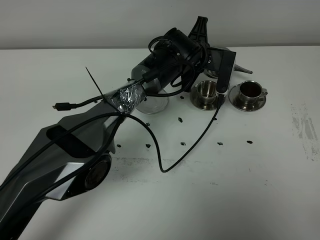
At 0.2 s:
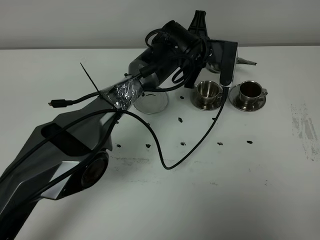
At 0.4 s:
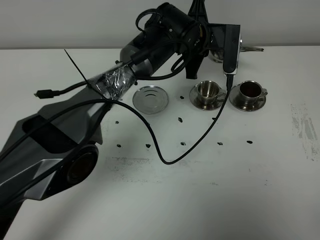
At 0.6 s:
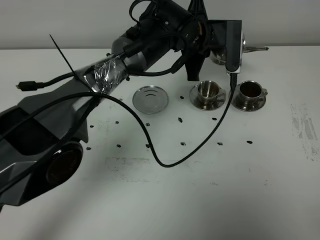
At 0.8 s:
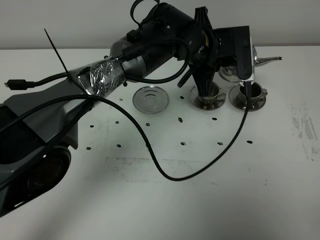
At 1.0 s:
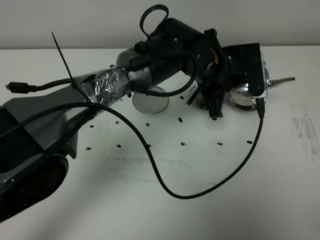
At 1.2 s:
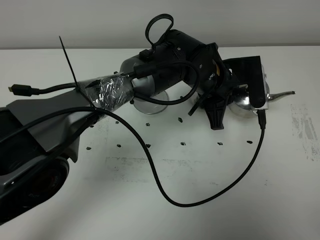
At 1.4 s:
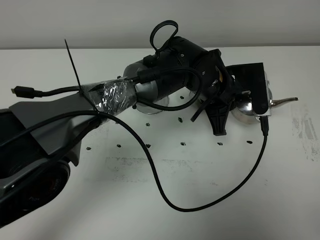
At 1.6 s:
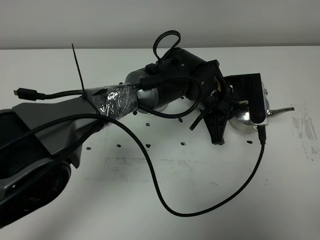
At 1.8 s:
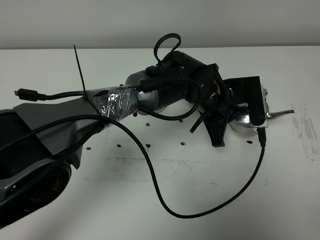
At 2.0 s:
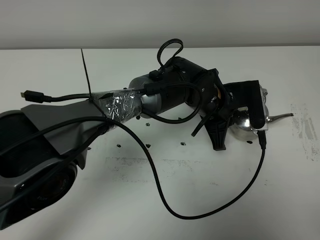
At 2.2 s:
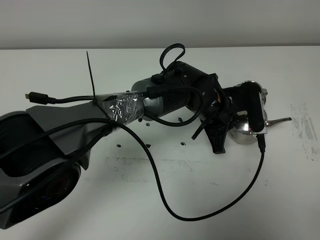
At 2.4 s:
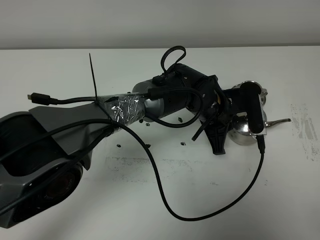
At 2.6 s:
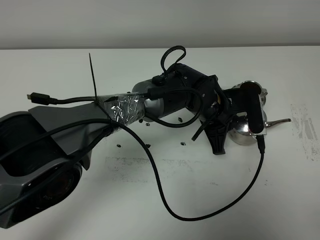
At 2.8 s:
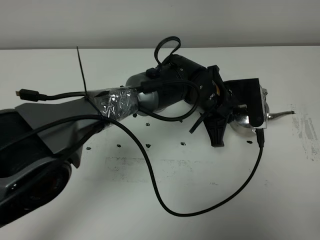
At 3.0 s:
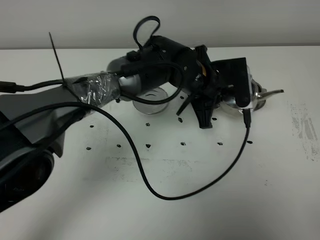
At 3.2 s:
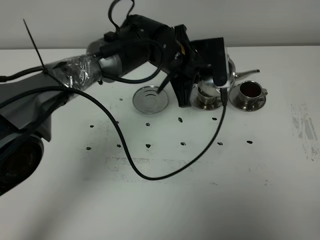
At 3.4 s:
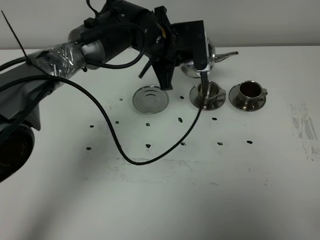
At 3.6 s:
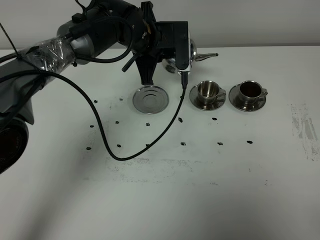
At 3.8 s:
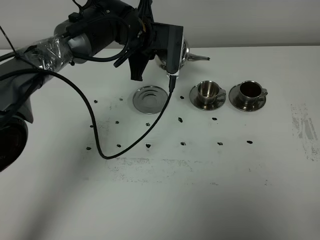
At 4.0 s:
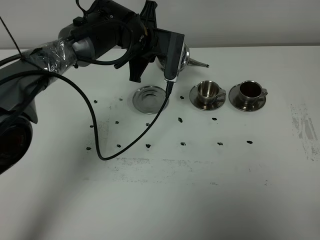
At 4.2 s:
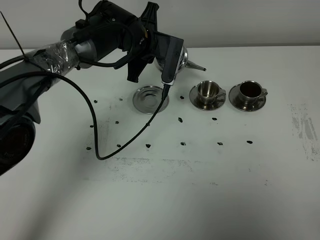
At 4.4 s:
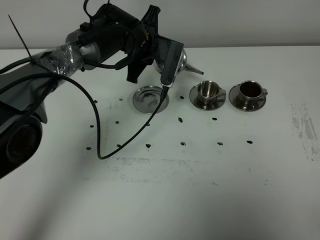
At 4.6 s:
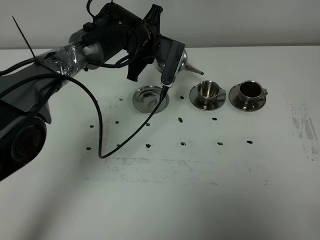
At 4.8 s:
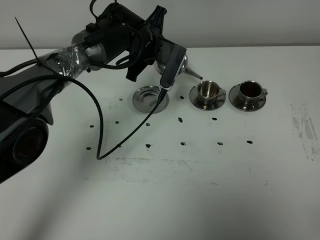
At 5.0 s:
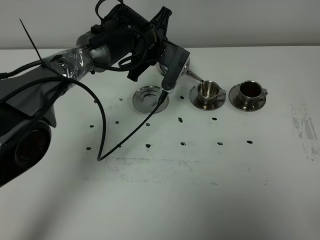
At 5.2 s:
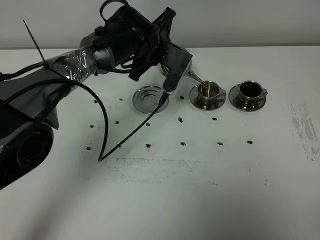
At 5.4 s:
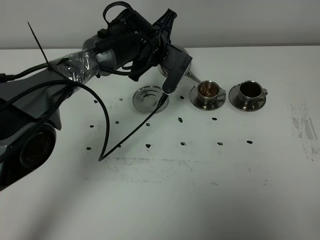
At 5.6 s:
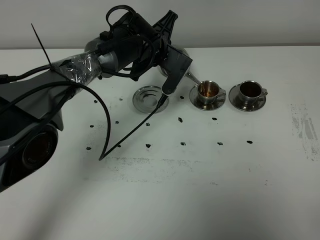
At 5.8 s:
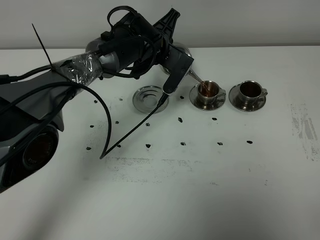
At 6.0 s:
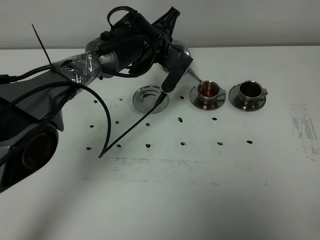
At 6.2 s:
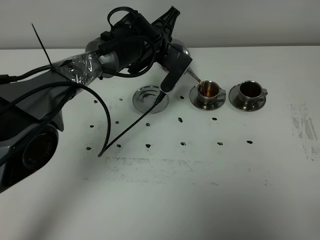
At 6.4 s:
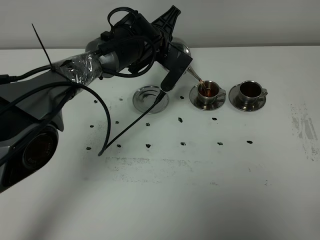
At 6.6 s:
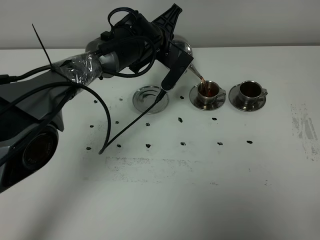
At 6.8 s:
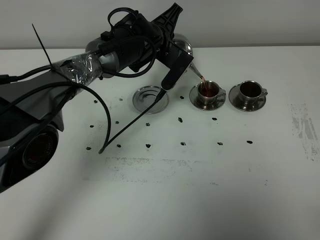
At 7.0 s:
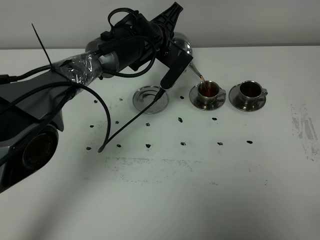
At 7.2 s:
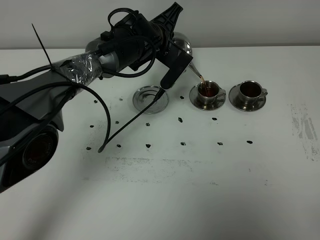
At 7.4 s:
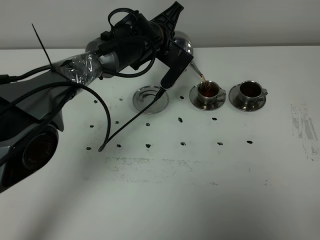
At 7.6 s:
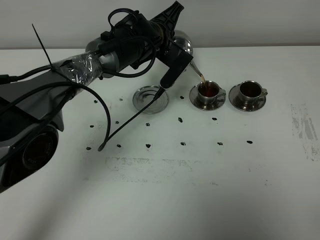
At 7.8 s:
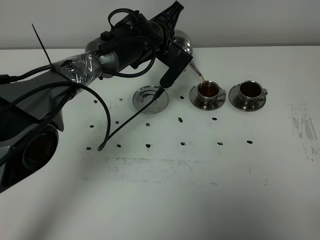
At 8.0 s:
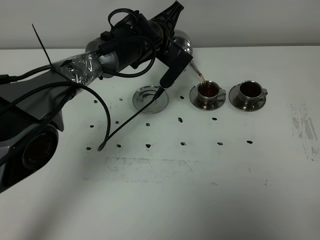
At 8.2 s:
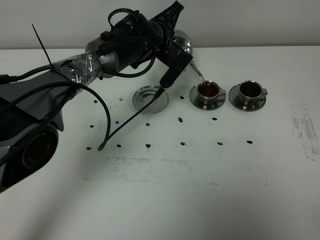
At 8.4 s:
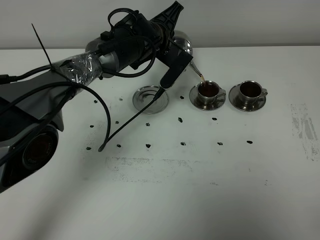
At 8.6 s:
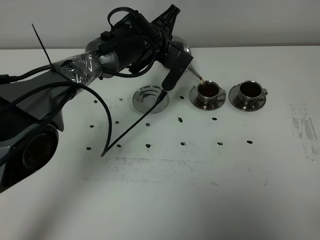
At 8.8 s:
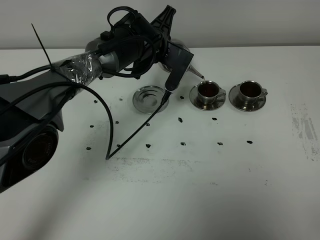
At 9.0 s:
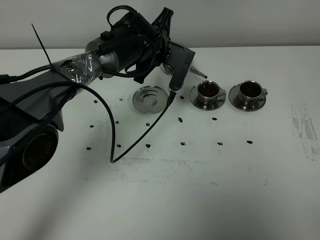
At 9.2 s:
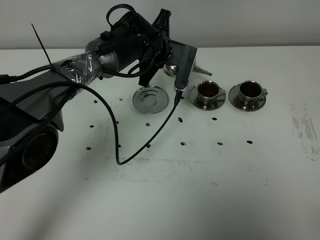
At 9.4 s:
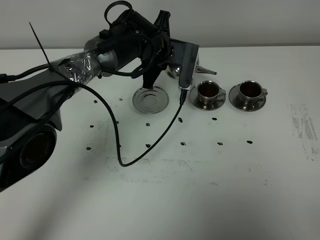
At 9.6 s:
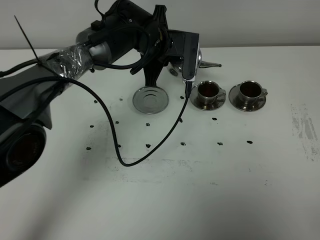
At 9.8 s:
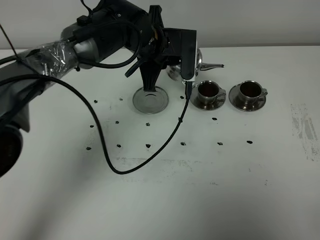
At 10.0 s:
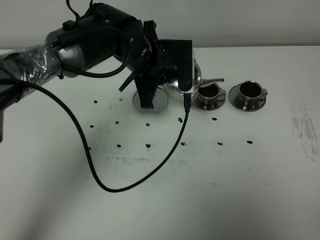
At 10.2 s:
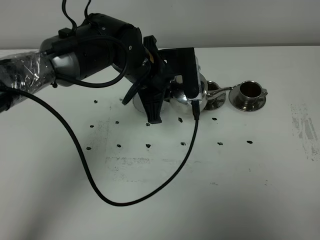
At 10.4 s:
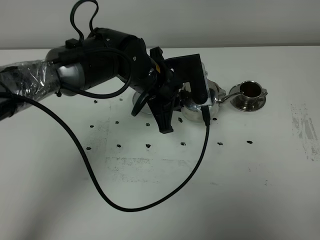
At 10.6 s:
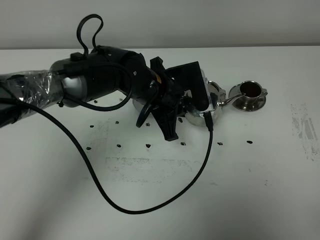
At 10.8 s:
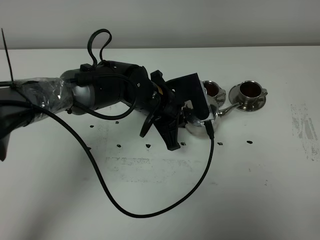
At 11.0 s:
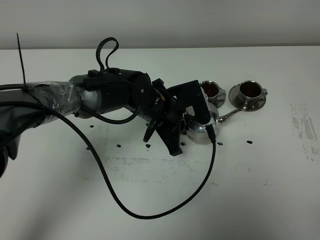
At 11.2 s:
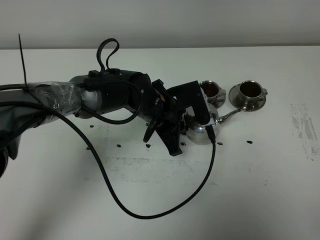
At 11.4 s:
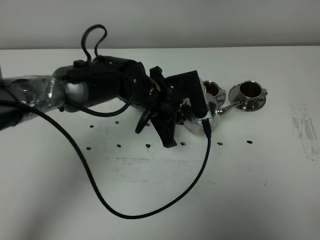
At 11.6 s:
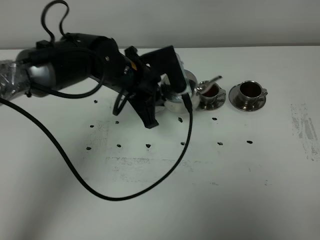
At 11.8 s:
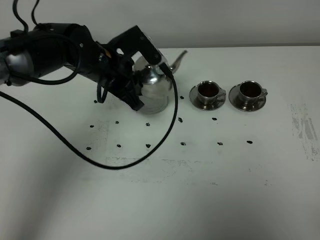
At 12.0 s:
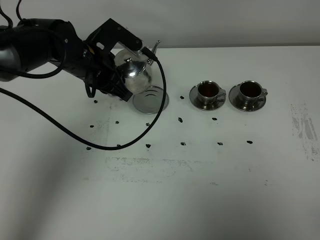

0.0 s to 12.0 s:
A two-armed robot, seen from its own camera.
Task of the whole recording: grasp the stainless steel teapot and pour the tea into the two stainless steel teacups one by one, put the stainless steel teapot back in its original place.
Step, 0.0 to 9.0 s: Pour tea into the teacup with the left gripper.
0.0 to 1.6 s: The left gripper is displaced backward by about 10 cm.
3.0 to 4.4 s: The left gripper goes about 15 cm to the left and forward.
4.4 to 6.0 s: There are only small adjustments of the grippers.
6.0 to 9.0 s: There are only small adjustments of the grippers.
9.0 to 10.4 s: The left gripper goes approximately 10 cm backward.
10.4 to 12.0 s: The left gripper travels to the left by roughly 10 cm.

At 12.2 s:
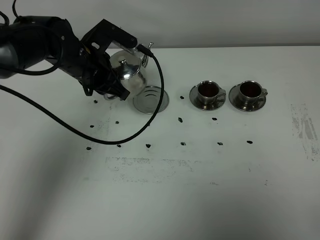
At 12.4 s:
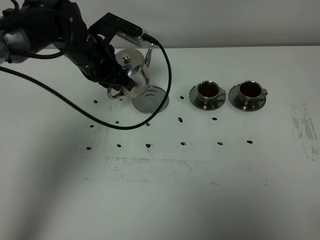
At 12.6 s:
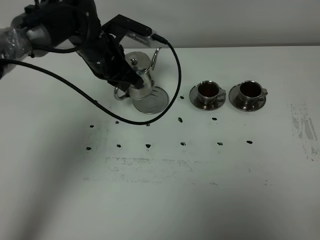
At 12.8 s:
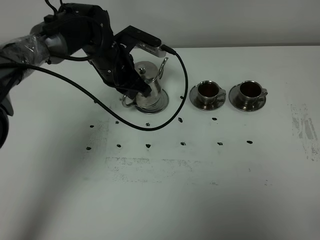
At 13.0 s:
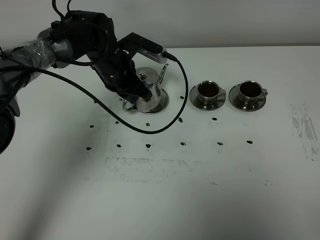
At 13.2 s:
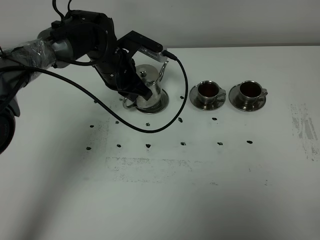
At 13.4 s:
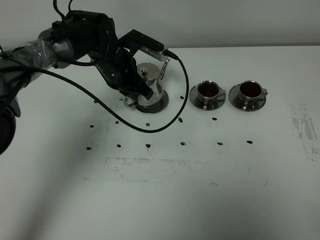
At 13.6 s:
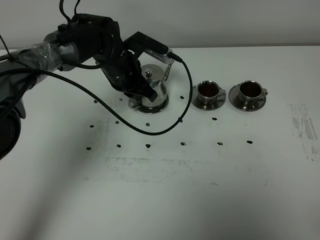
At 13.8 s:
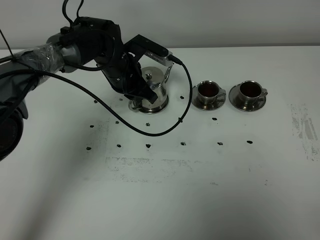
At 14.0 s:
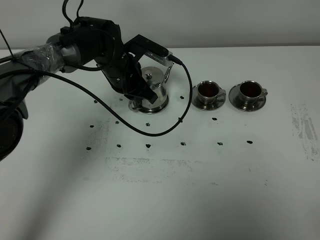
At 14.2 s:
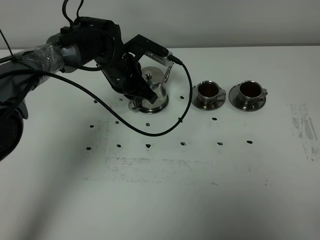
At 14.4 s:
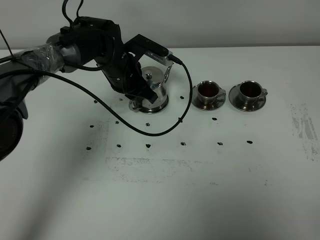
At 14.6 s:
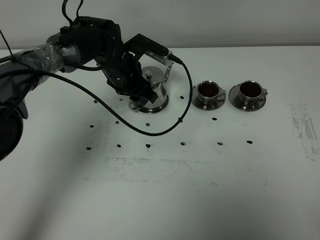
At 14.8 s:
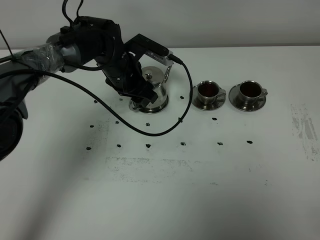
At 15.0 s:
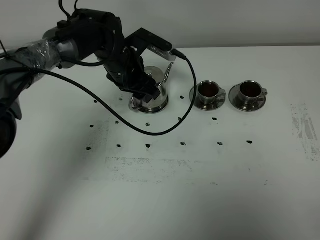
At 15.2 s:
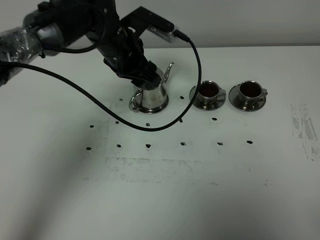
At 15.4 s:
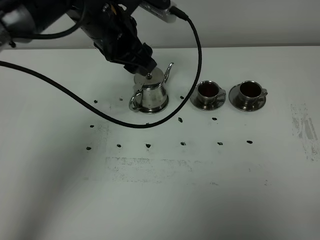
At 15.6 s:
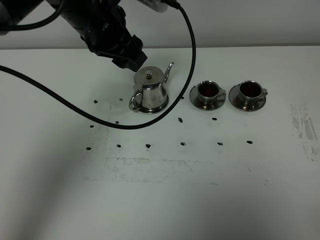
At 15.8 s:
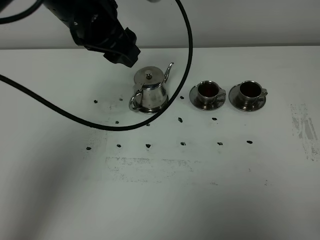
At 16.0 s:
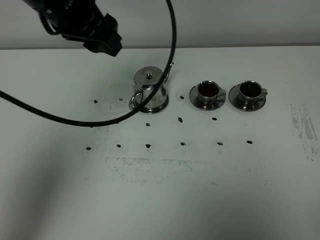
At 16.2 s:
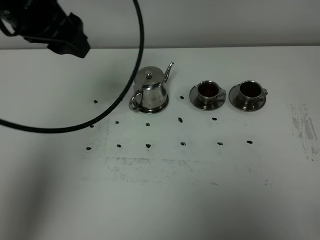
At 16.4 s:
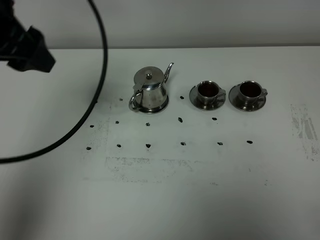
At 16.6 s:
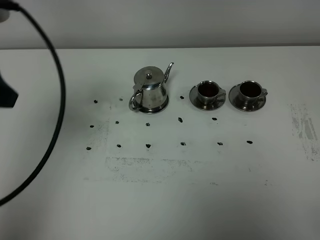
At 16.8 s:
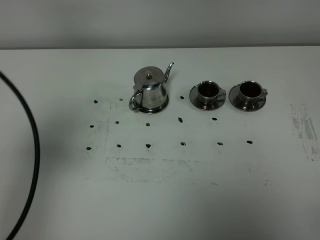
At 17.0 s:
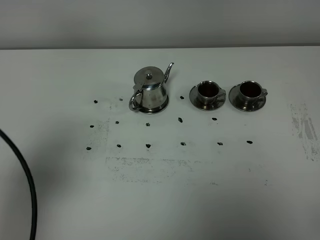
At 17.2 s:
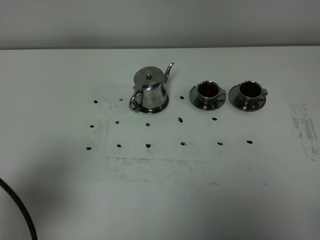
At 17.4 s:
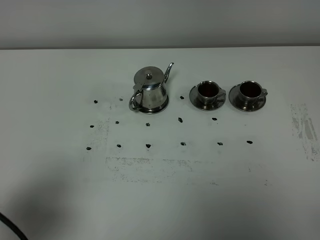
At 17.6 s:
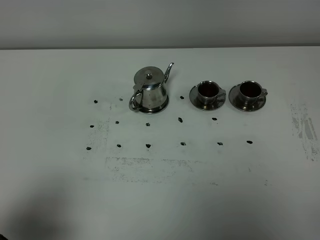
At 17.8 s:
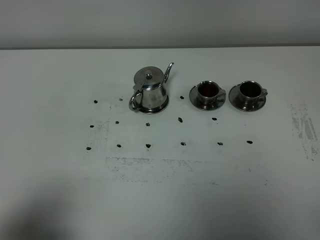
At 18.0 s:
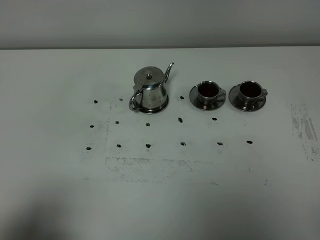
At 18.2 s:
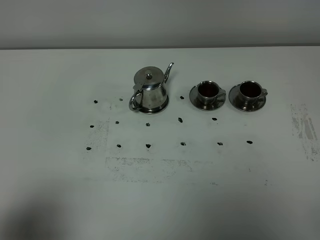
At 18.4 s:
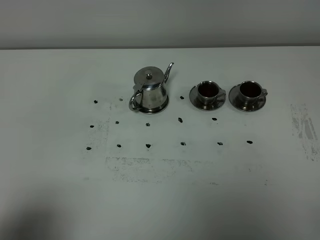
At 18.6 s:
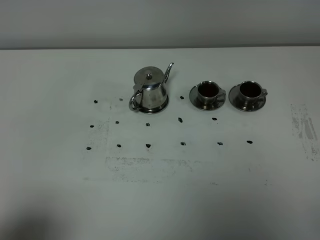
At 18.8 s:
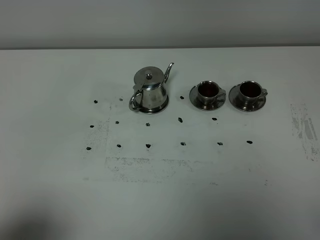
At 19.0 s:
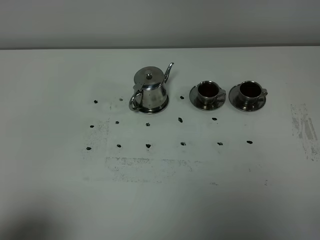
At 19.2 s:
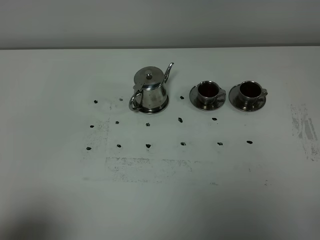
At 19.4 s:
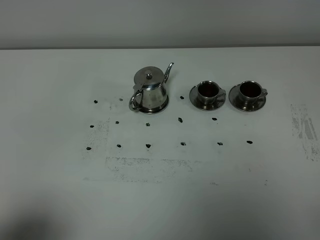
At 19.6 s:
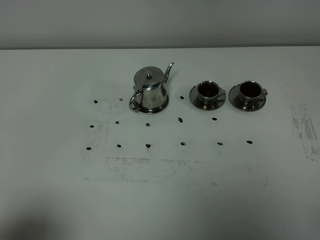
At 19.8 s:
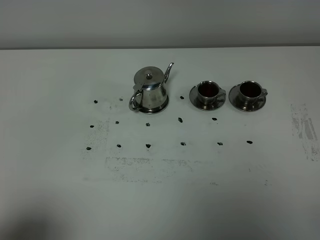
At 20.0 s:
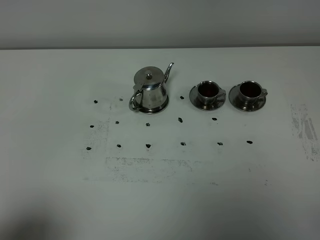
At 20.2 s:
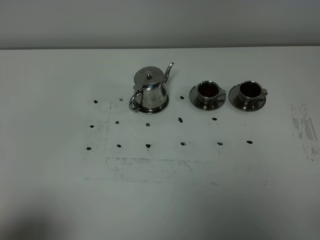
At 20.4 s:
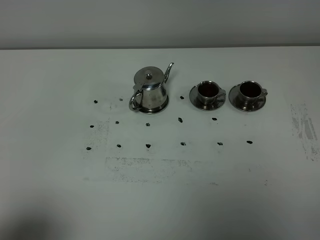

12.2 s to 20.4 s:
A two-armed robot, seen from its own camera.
Task of the whole recording: grasp the stainless steel teapot and pour the tea into the two stainless steel teacups one by one, put the stainless steel teapot back in its original place.
12.2 to 13.8 s: The left gripper shifts about 10 cm downward and to the right.
13.8 to 15.4 s: The left gripper moves upward, roughly 15 cm, and opens up.
15.4 to 17.2 s: The left gripper travels backward and to the left by some 35 cm.
17.2 to 18.8 s: The left gripper goes about 10 cm backward.

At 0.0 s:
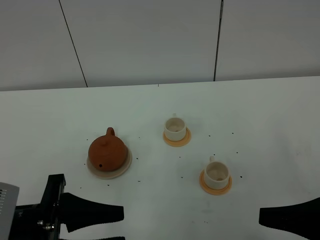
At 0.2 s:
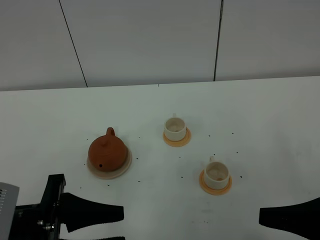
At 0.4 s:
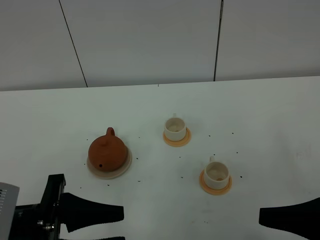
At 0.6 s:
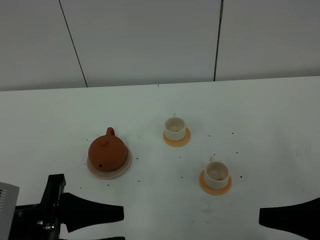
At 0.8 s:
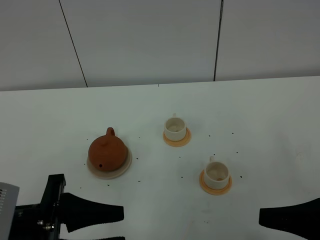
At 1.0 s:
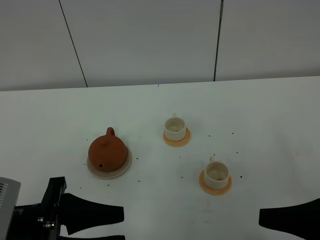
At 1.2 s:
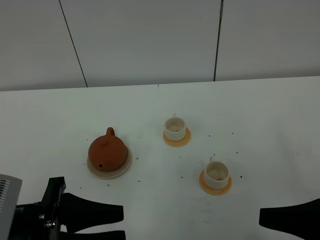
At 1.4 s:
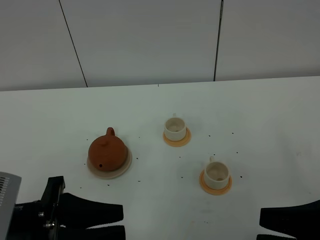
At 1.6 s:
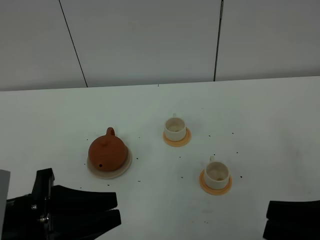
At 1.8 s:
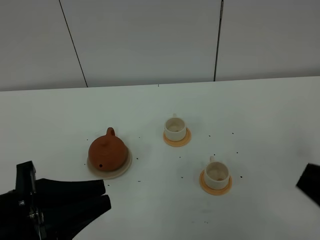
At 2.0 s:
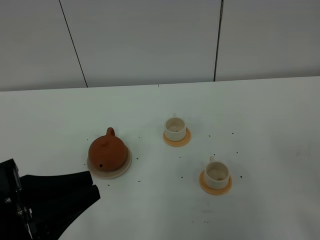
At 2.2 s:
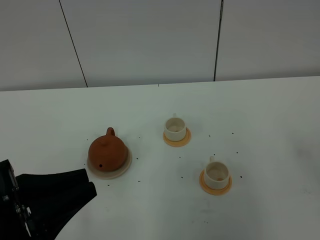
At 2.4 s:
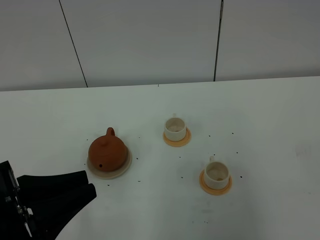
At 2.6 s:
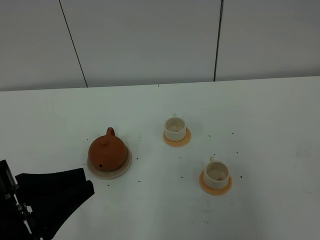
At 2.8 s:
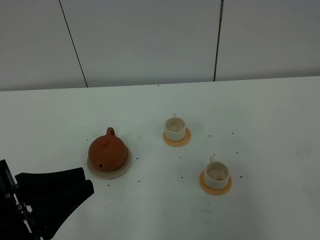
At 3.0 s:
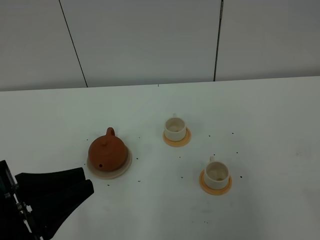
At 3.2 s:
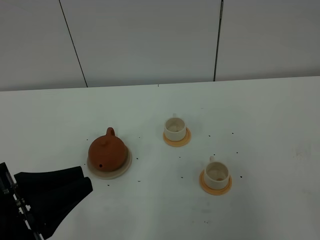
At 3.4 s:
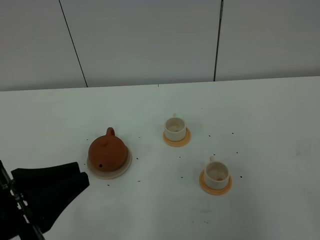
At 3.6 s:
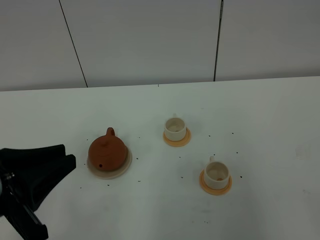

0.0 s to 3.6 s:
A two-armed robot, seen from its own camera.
Task of the whole recording: grasp the brown teapot and pour the tea into the two white teacups one by one, put the brown teapot back in its original place.
0.0 to 1.8 s: The right gripper ends up roughly 5 cm from where it was, and closes its fingers. Meanwhile the left gripper closes.
1.8 to 3.6 s: The left gripper shifts by approximately 5 cm; the right gripper shifts approximately 10 cm backward and to the right.
